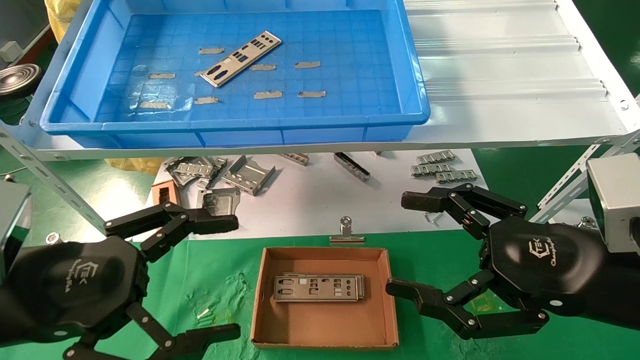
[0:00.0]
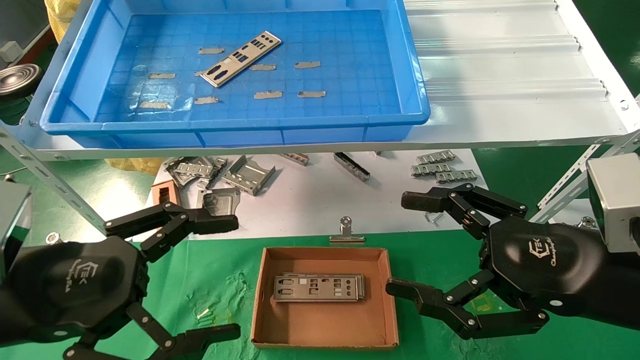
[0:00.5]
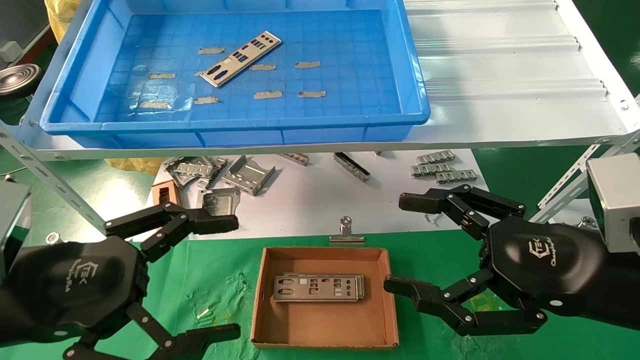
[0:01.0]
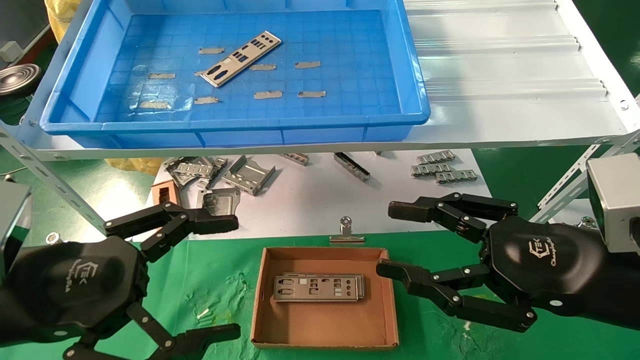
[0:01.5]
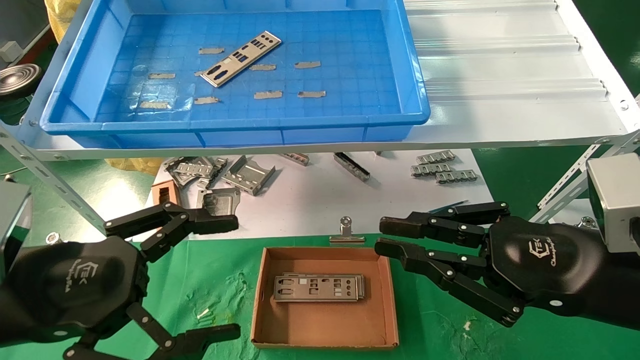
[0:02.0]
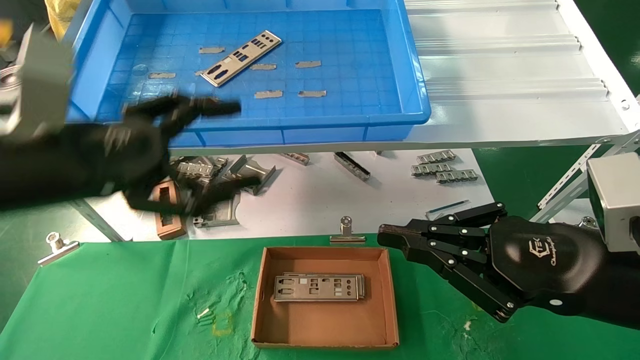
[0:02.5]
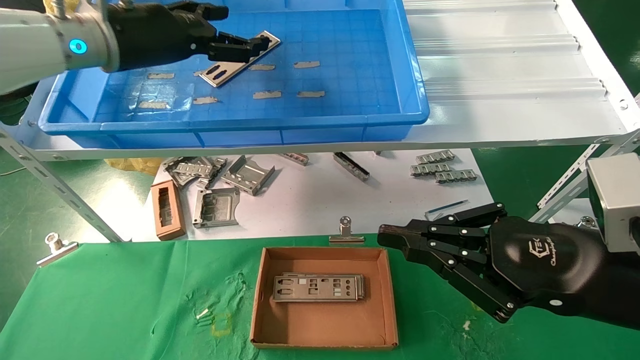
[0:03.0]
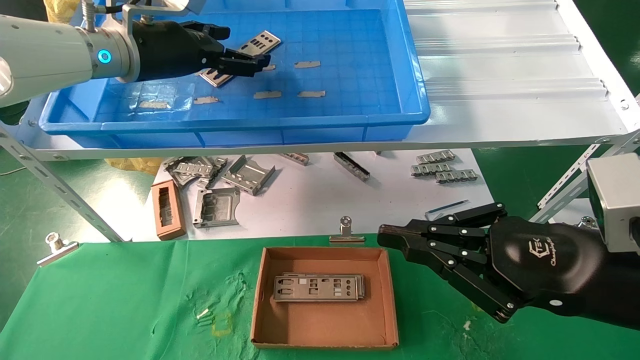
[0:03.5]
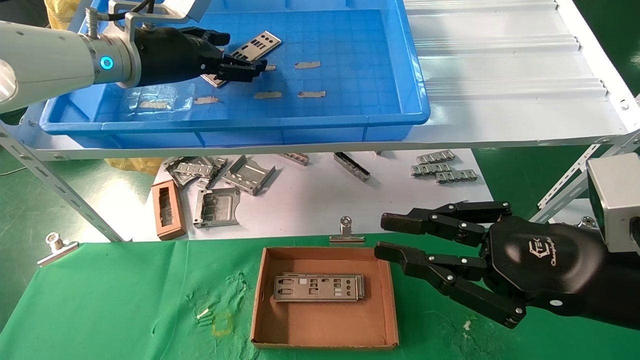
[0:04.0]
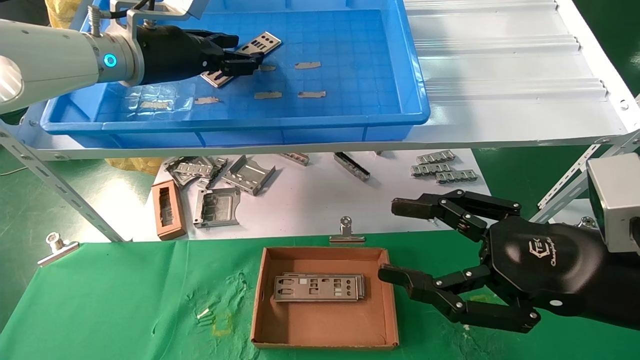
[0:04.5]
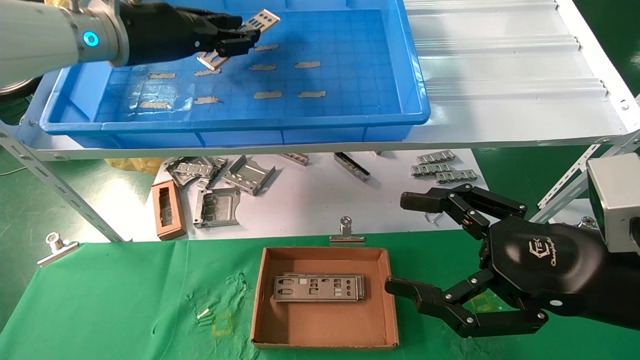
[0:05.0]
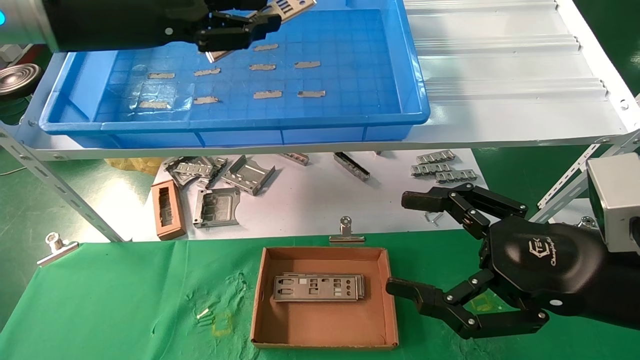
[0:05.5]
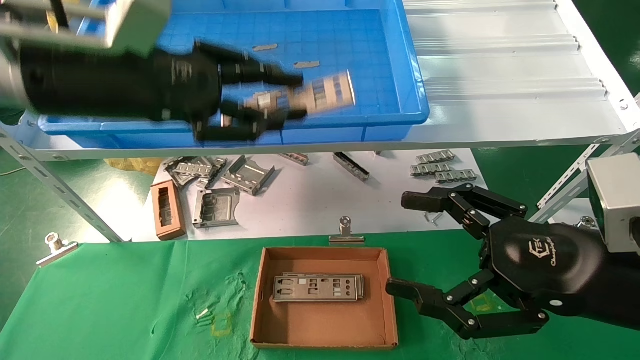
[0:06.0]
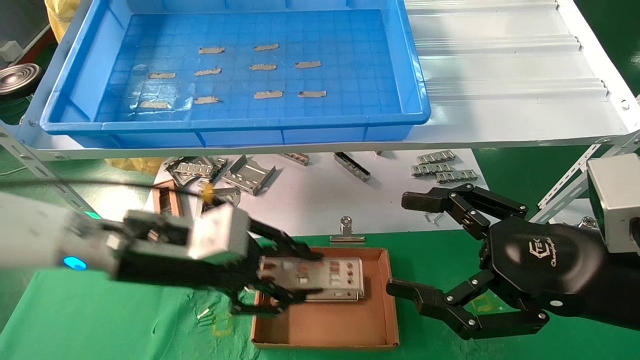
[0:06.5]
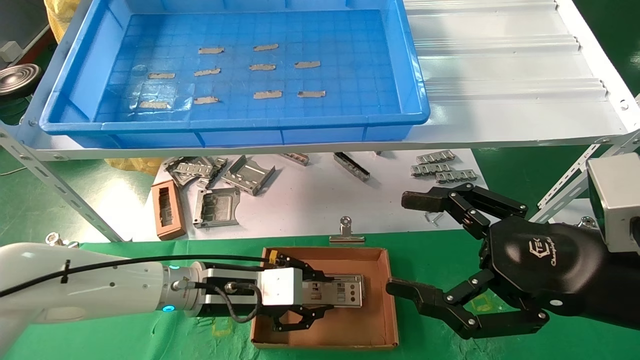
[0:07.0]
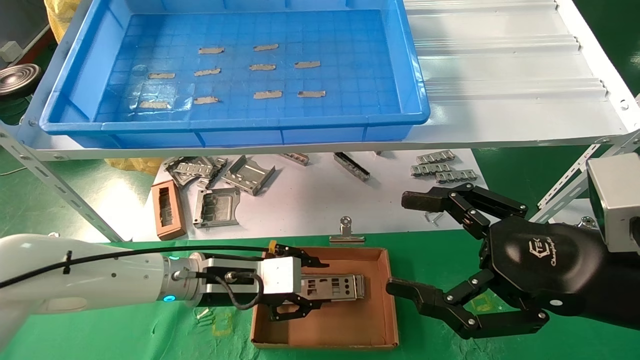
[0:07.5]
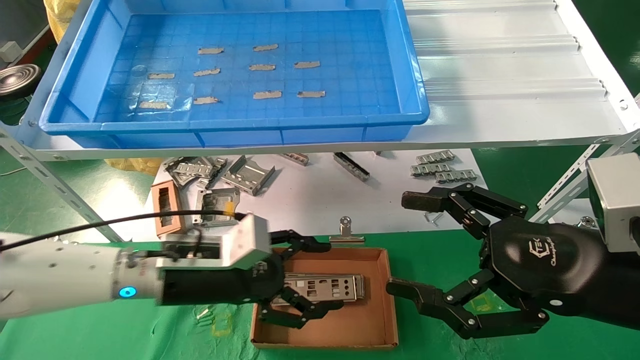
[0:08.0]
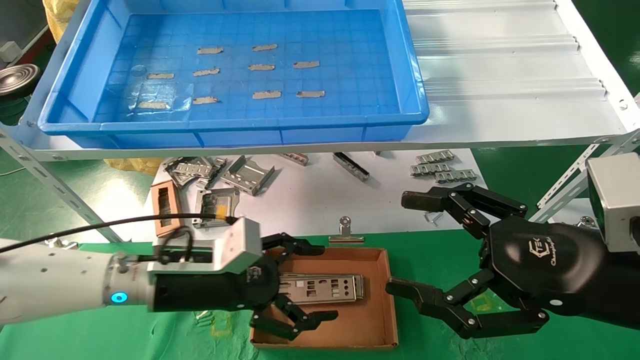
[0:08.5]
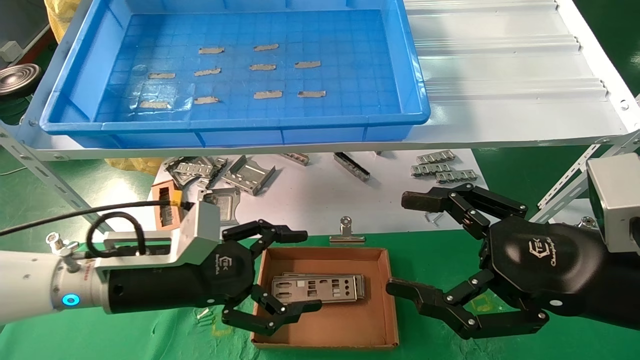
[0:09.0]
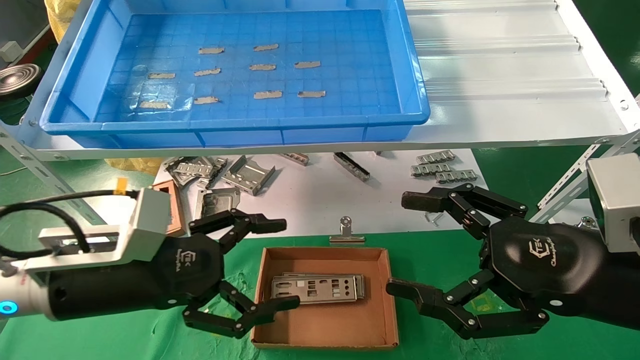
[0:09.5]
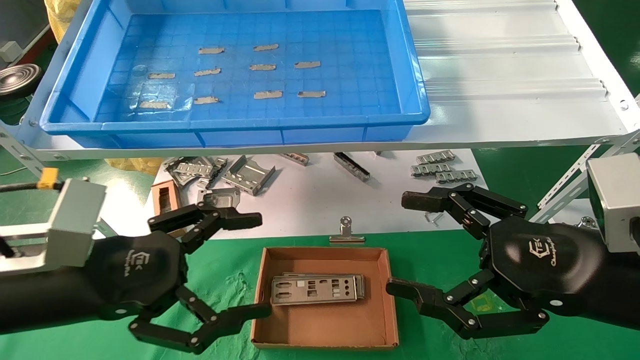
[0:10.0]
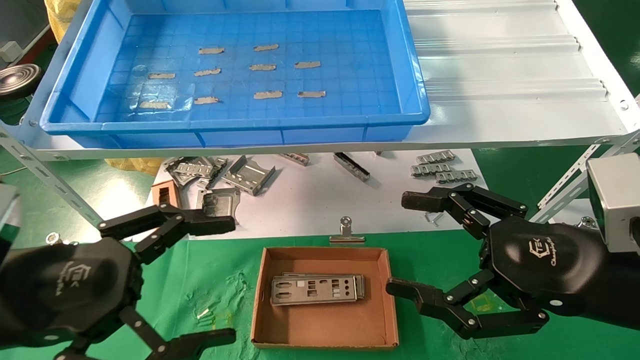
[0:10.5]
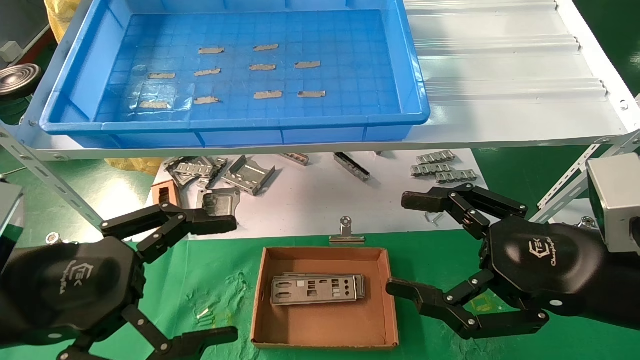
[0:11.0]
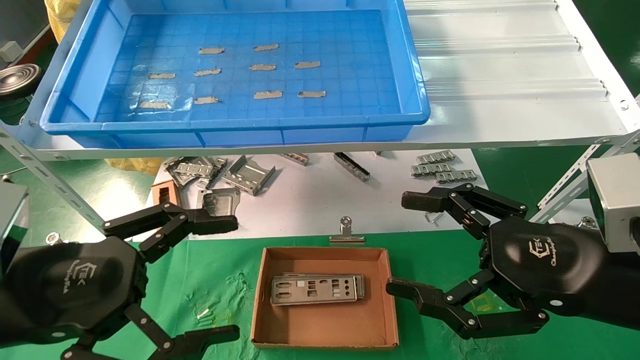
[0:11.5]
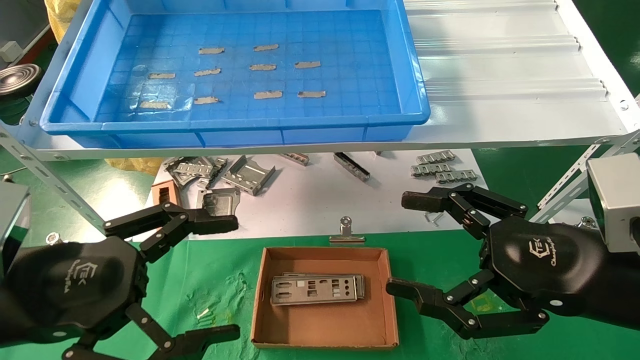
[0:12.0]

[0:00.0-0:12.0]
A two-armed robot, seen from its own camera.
Task of the whole recording: pick up the parts on the tray and put them in the cardboard box.
Step, 0:02.5 to 0:04.5: Pick up the IO bracket from the container box.
Step, 0:05.0 to 0:07.0: Place the IO bracket into the ingredient slot.
0:00.0 to 0:02.0: The right gripper closes its fingers.
0:02.0 to 0:04.0: The left gripper heads forward and upward, covering about 30 cm.
0:04.0 to 0:06.0: The right gripper opens its fingers. The left gripper travels backward by some 15 cm, and closes its fingers.
0:06.0 to 0:08.0: The left gripper travels downward by about 25 cm, and opens.
0:08.0 to 0:10.0: The left gripper heads backward, to the left and upward, covering roughly 15 cm, and opens up.
0:10.0 to 0:12.0: There are only small adjustments of the grippers.

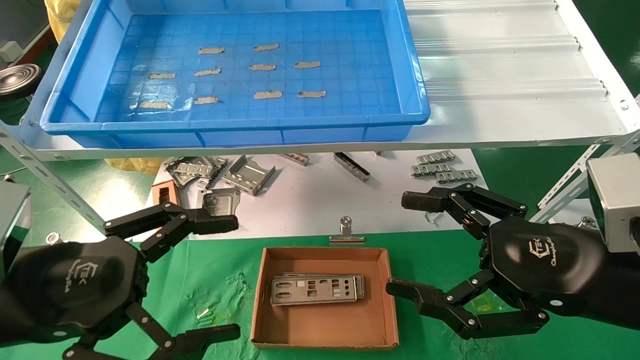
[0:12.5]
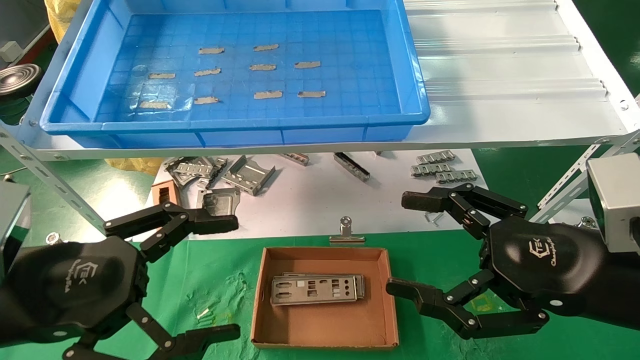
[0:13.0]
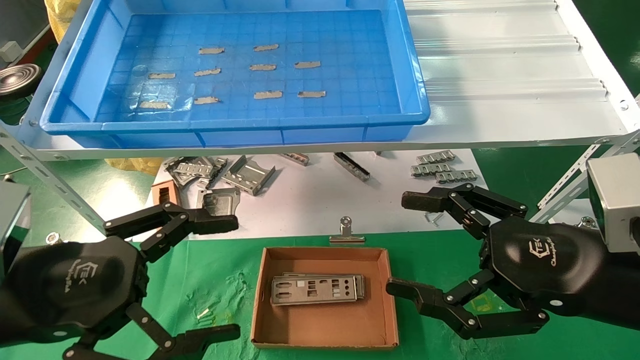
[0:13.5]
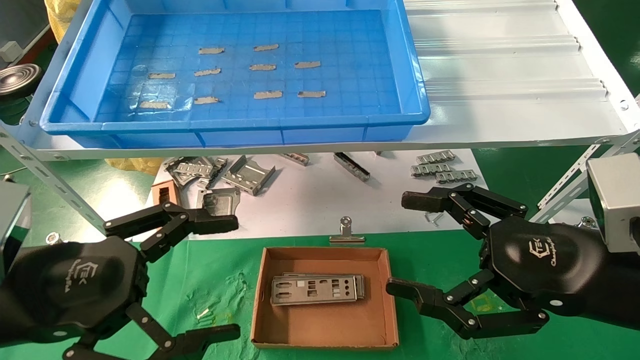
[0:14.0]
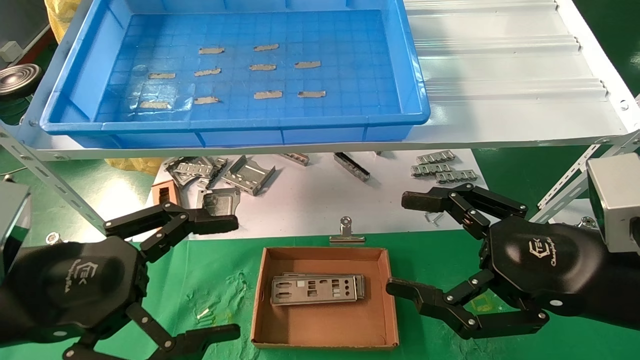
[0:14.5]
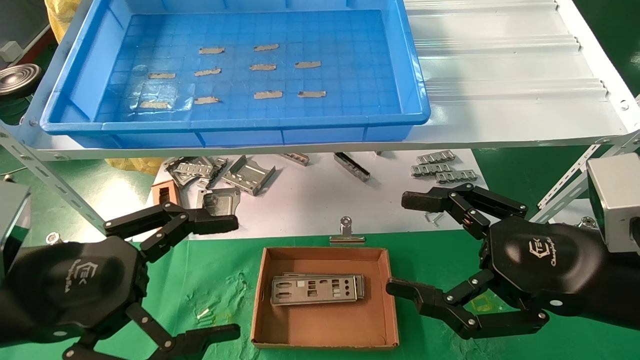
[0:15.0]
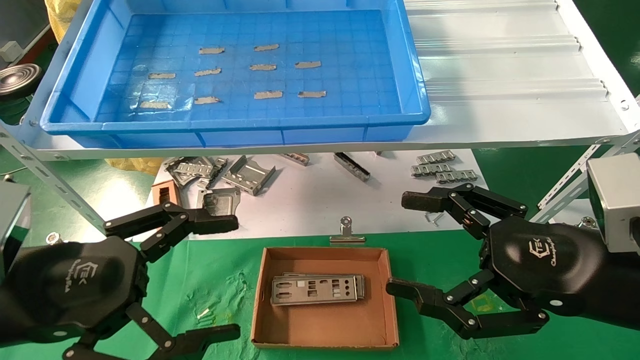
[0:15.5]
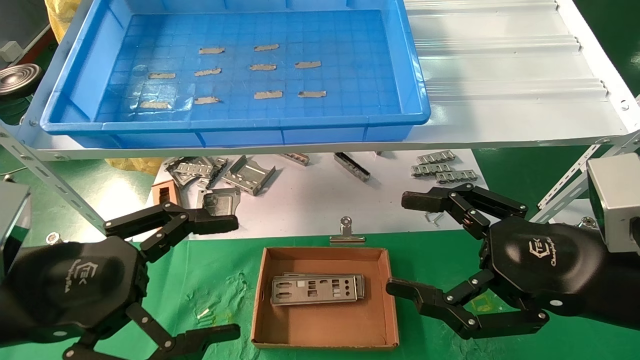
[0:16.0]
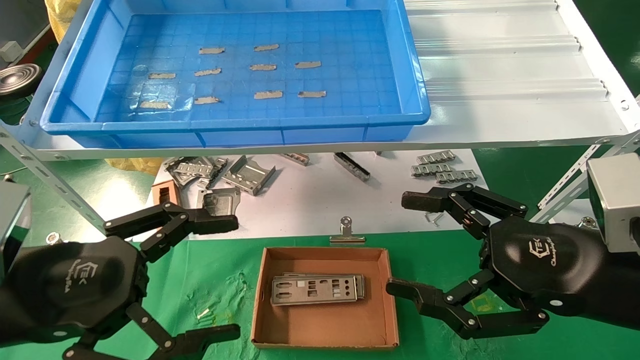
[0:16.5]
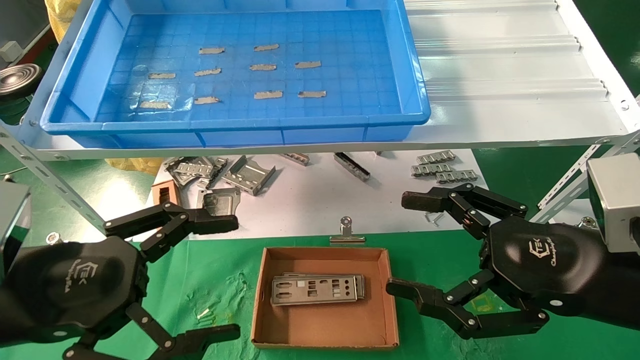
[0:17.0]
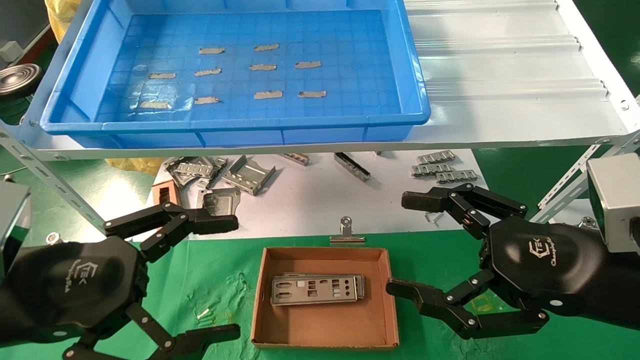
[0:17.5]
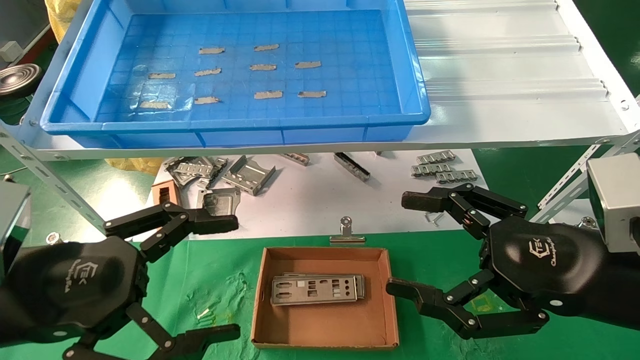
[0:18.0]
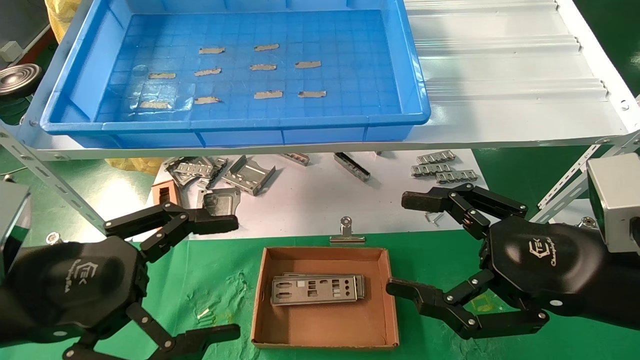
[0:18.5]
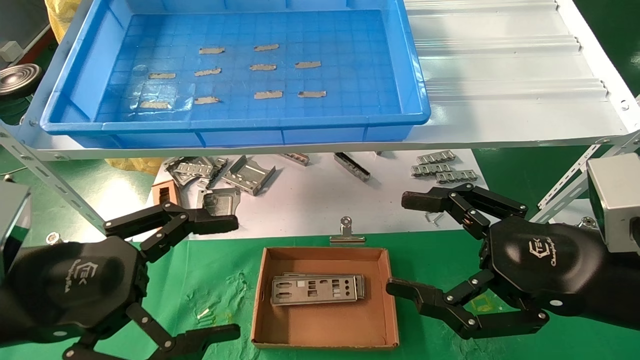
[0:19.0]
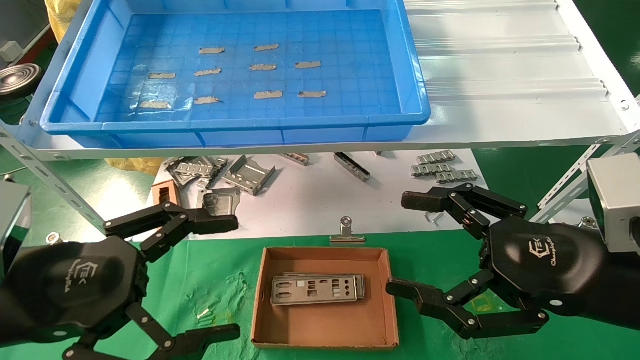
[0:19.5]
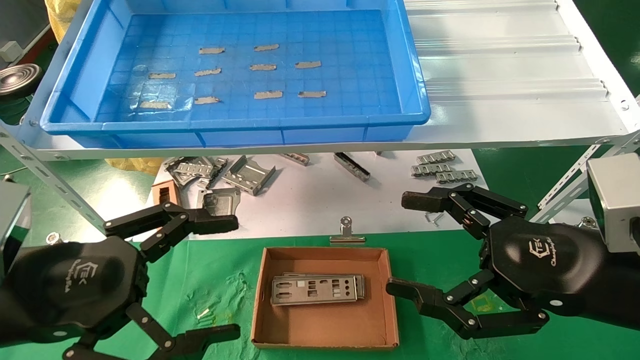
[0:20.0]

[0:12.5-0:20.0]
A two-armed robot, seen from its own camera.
Task of the whole recording: pick up the parts on the tray and put them in the cardboard box.
0:12.5 to 0:20.0: Both grippers stay put.
